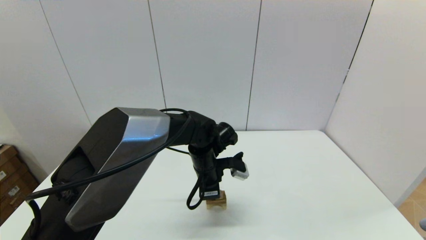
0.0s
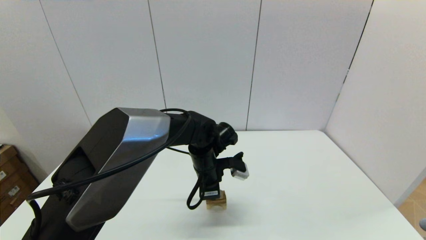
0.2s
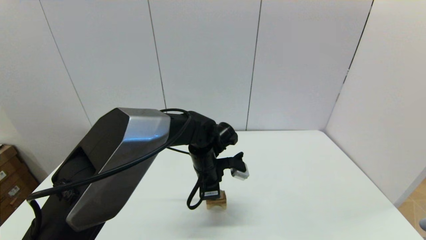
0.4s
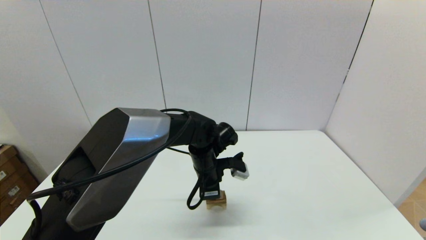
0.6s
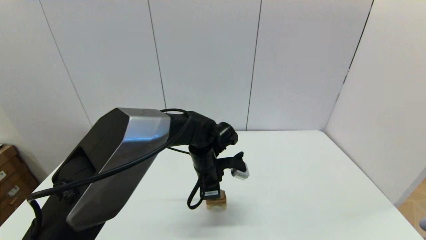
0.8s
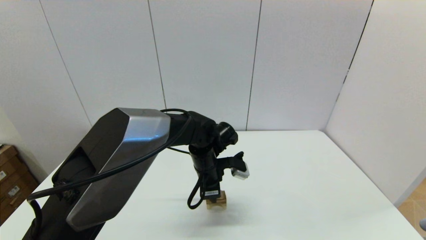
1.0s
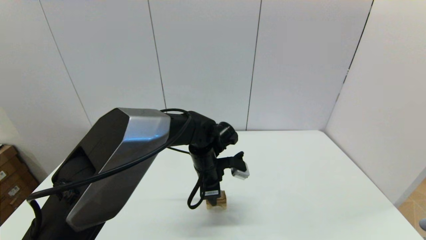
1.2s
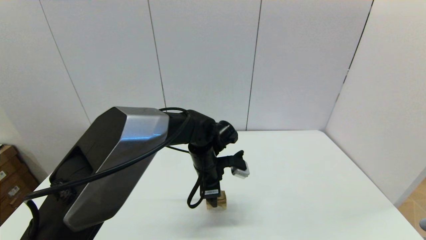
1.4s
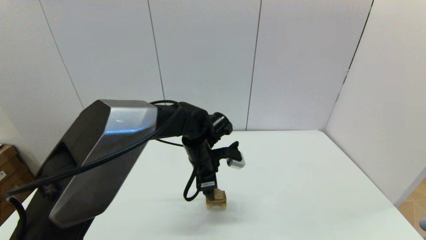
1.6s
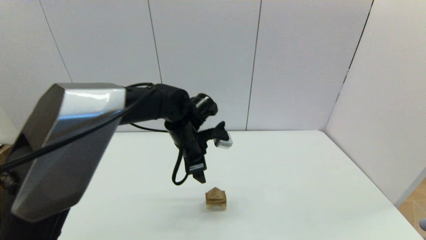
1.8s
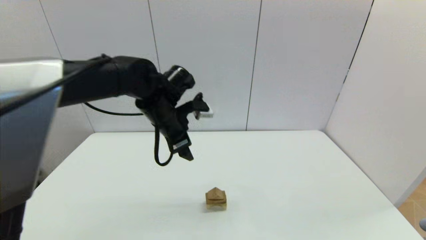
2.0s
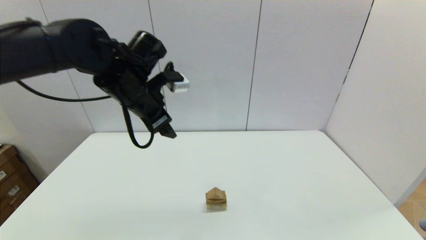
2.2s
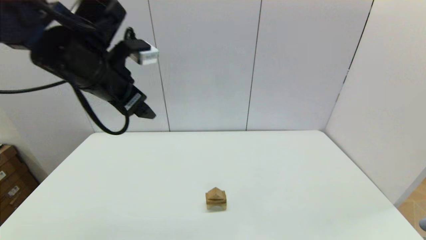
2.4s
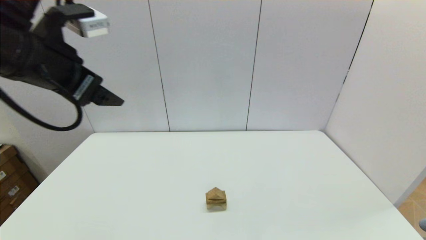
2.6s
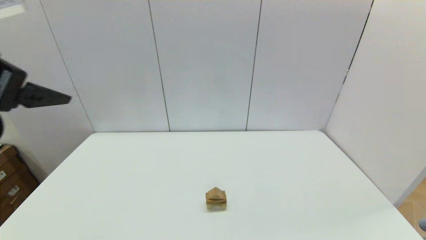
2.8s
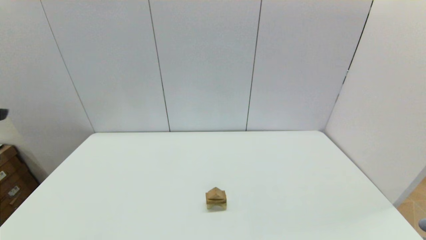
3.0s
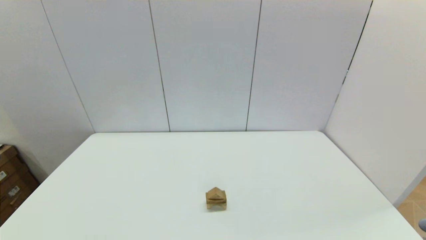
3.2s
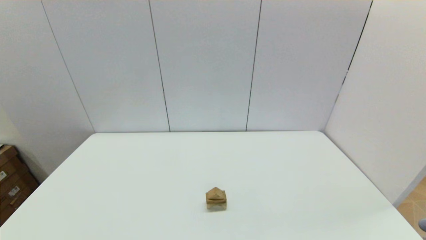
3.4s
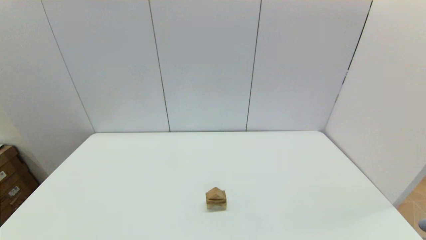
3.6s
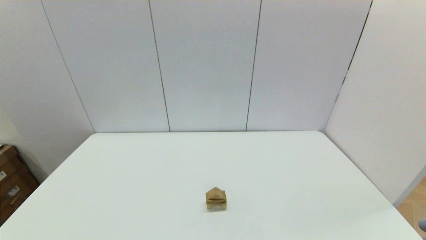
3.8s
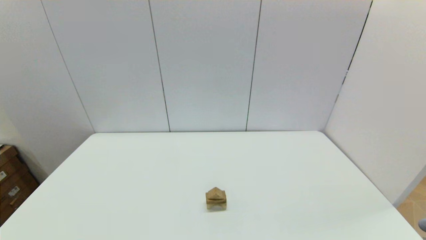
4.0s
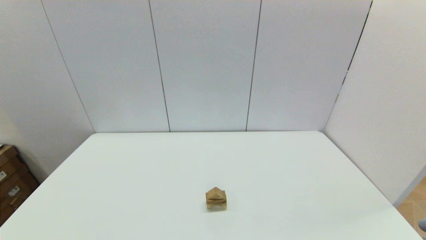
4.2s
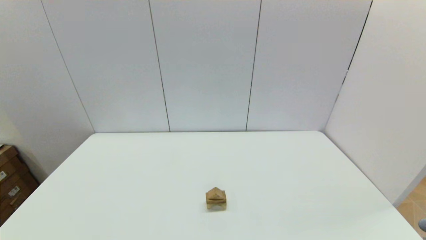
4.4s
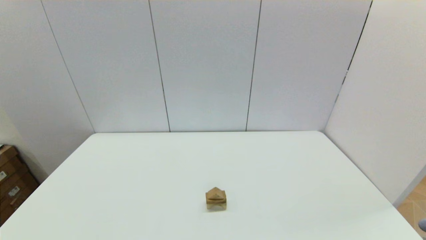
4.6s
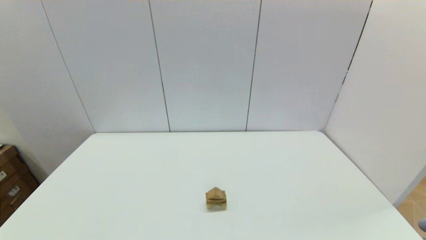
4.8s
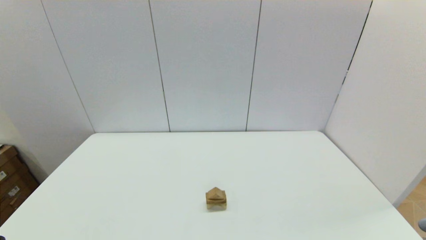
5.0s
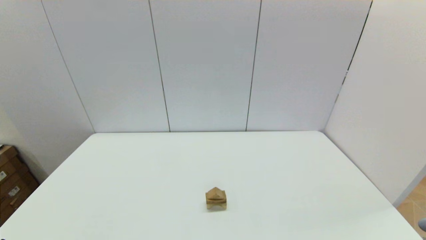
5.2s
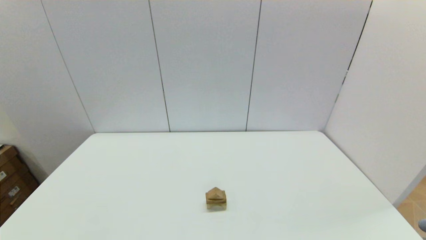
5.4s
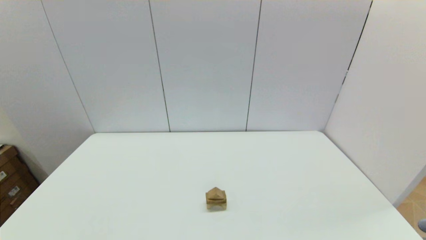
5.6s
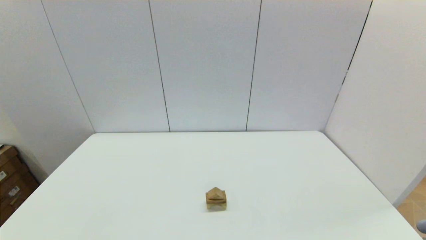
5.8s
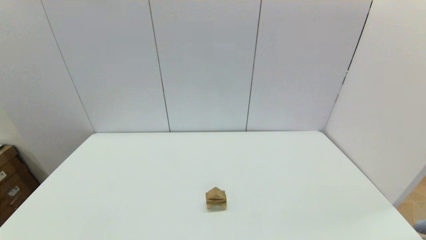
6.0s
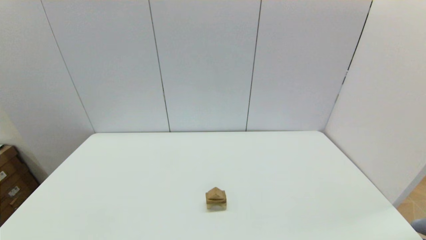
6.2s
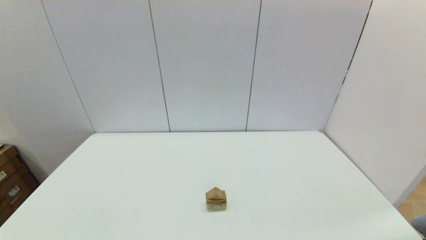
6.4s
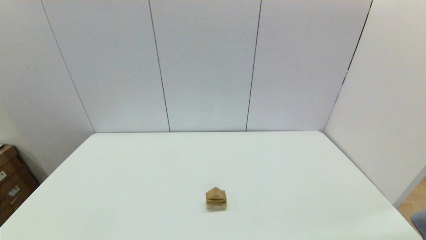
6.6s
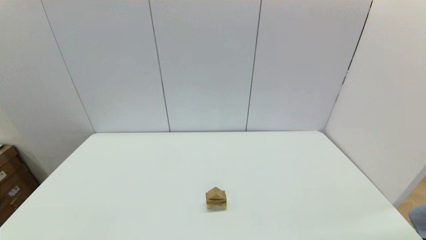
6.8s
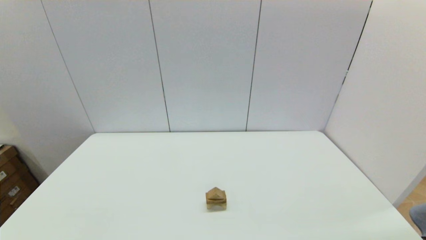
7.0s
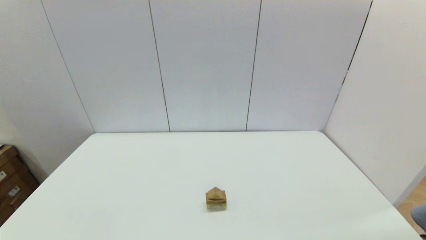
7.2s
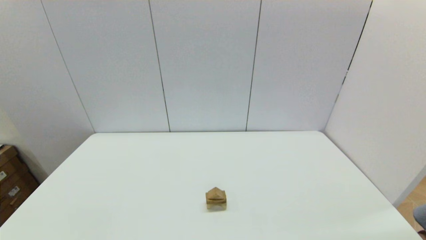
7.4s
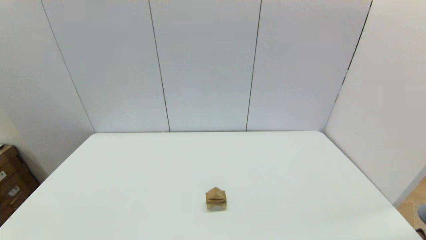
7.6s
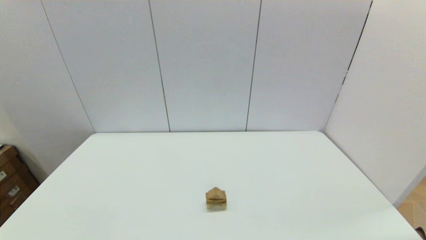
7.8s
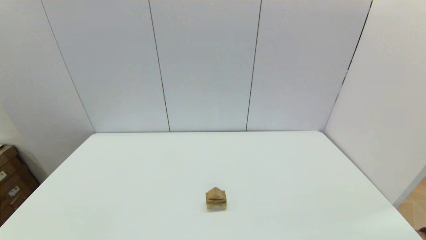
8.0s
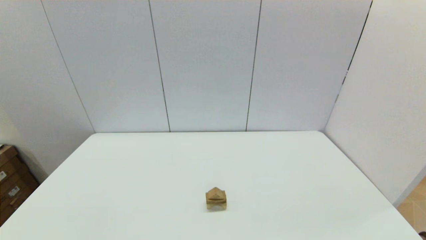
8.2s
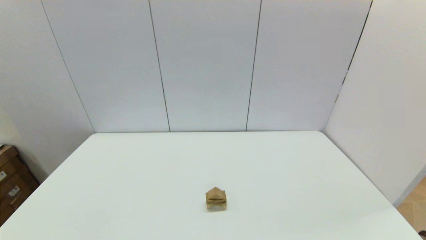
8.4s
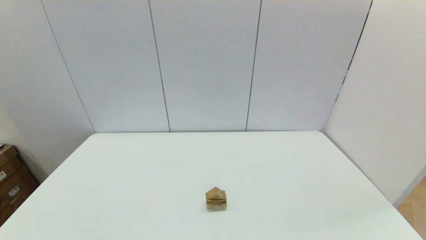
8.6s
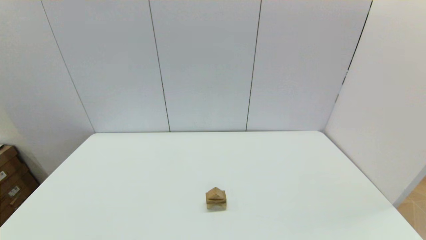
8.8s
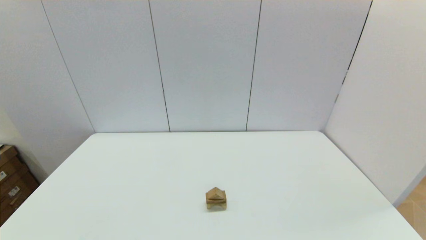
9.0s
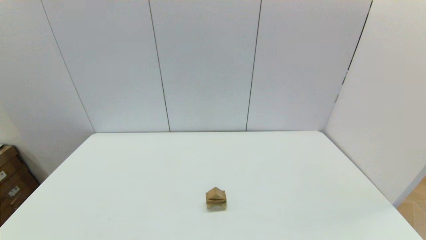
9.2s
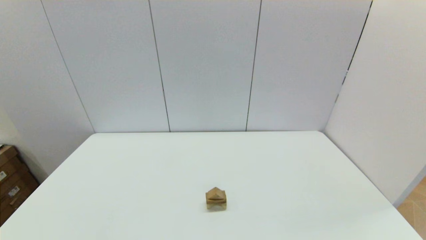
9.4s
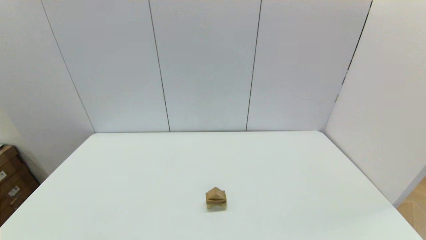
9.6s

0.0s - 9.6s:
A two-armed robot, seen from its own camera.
Task of the whole recording: place the arched building blocks in the center of the table, set up the rectangular building blocks, and then set up the triangular building blocks.
0.0s - 1.6s: The left gripper opens its fingers.
1.6s - 3.2s: The left gripper moves backward, to the left and upward, some 50 cm.
6.4s - 9.6s: Both grippers stay put.

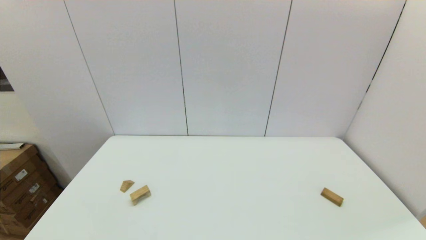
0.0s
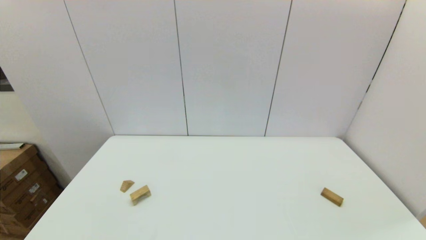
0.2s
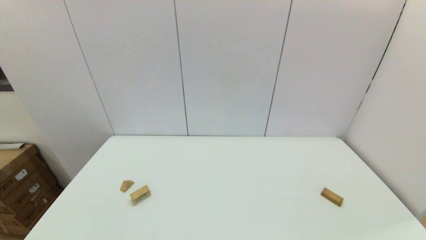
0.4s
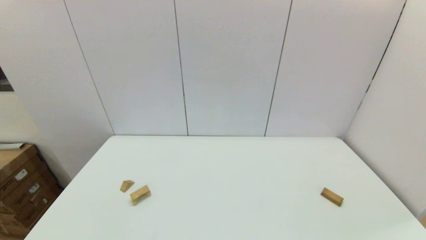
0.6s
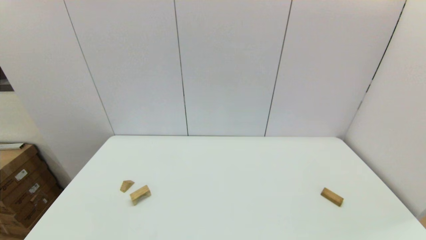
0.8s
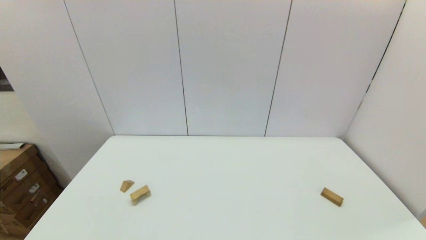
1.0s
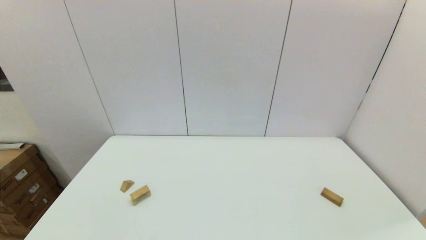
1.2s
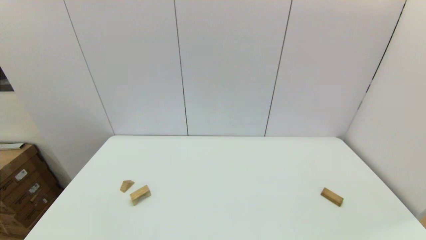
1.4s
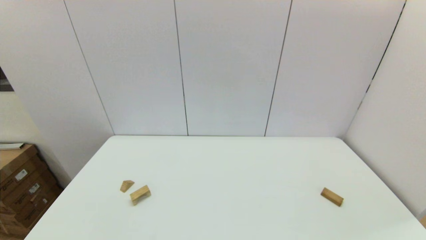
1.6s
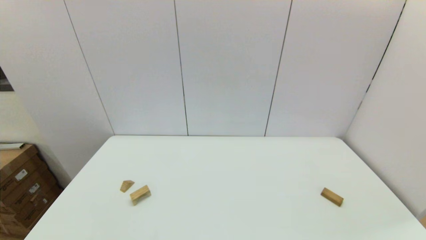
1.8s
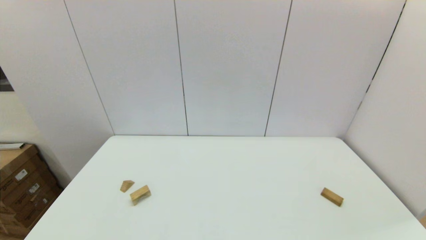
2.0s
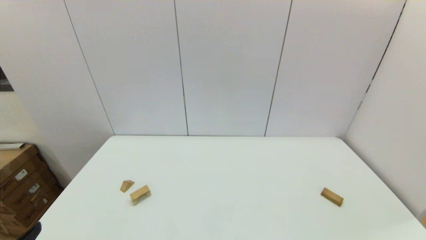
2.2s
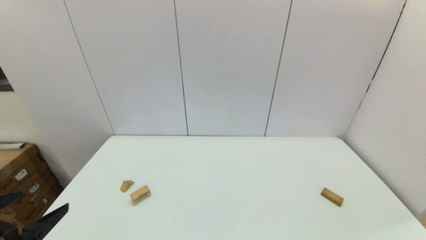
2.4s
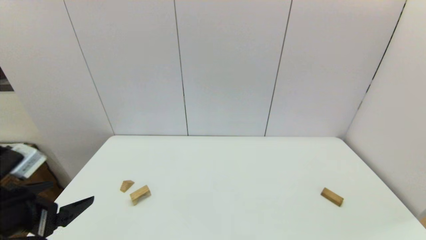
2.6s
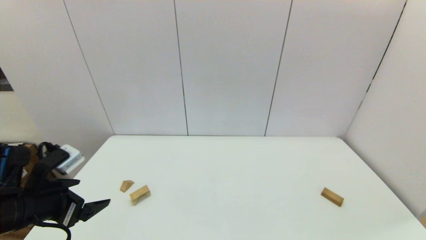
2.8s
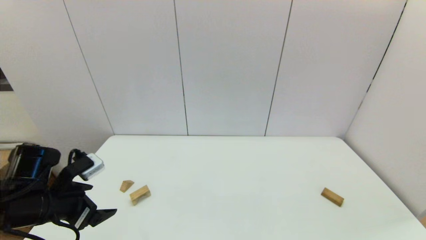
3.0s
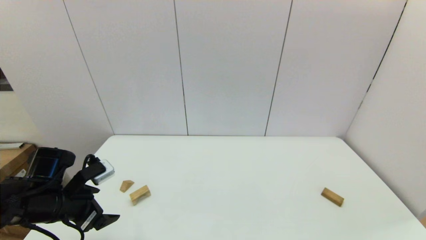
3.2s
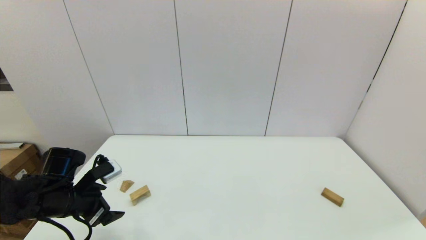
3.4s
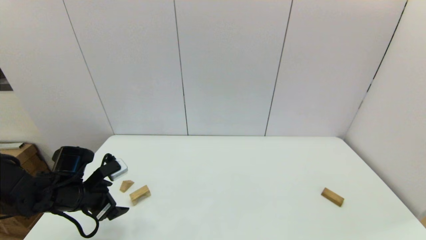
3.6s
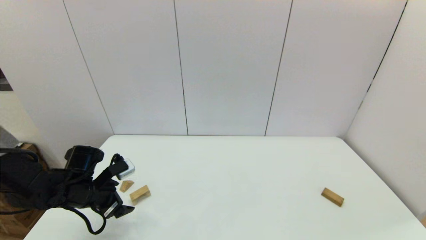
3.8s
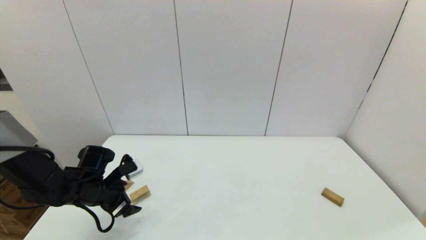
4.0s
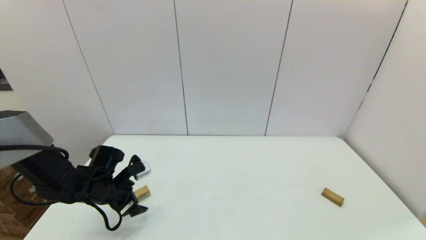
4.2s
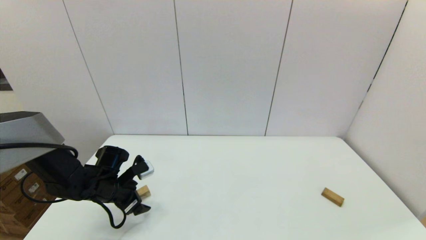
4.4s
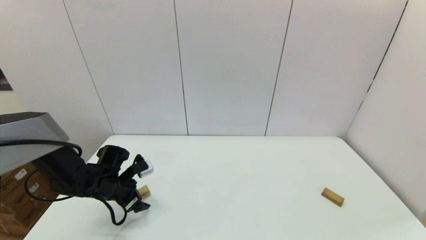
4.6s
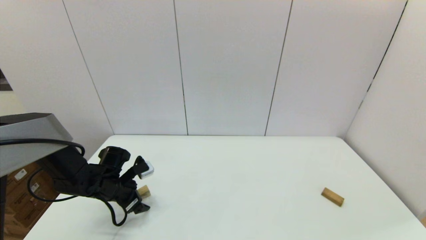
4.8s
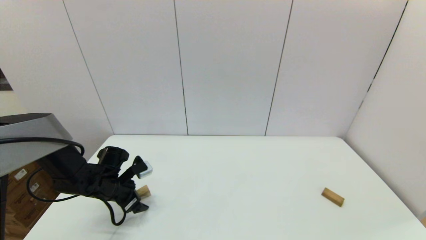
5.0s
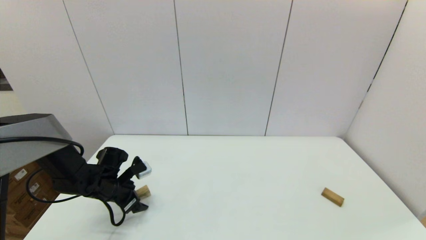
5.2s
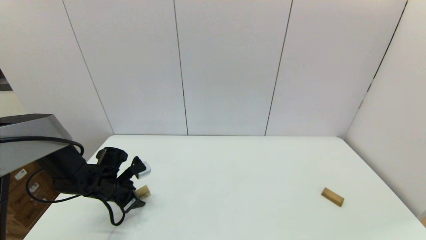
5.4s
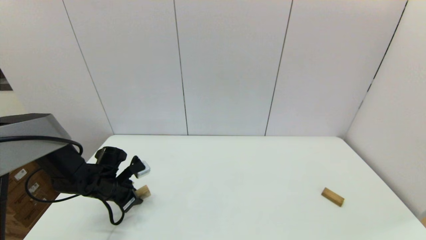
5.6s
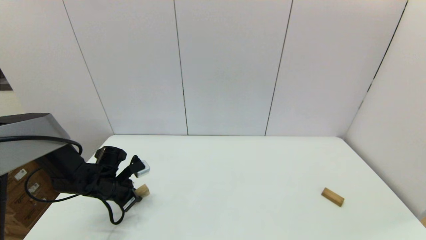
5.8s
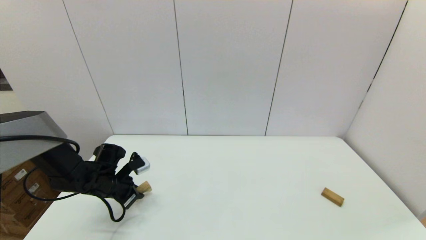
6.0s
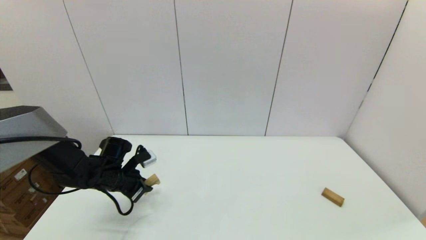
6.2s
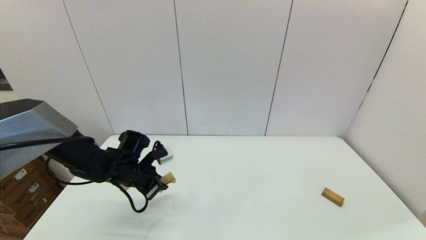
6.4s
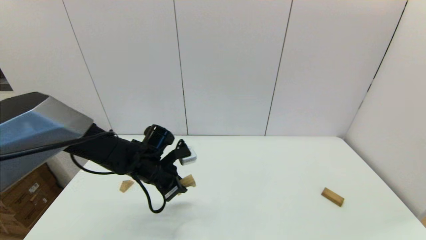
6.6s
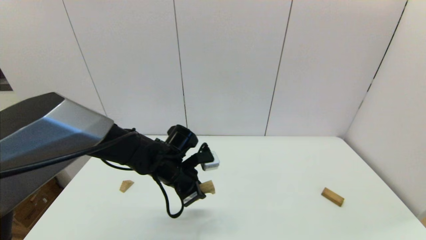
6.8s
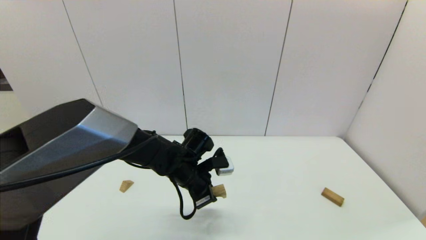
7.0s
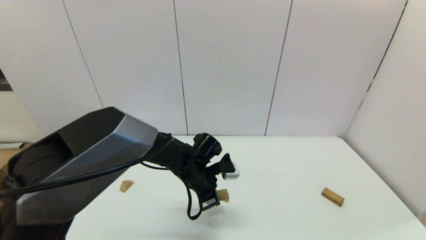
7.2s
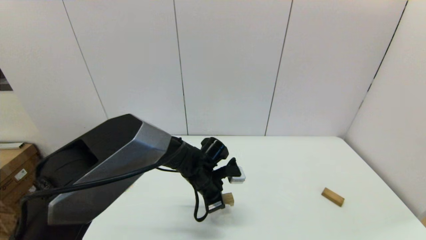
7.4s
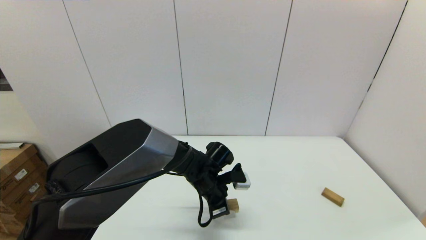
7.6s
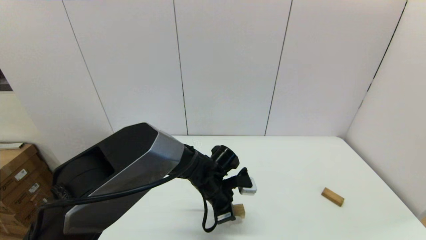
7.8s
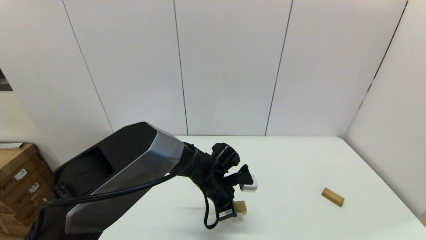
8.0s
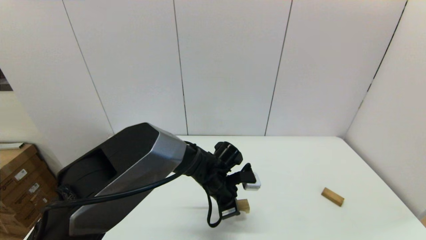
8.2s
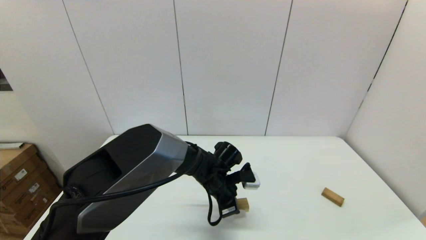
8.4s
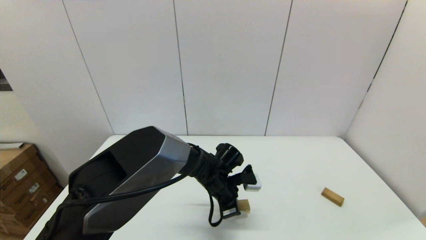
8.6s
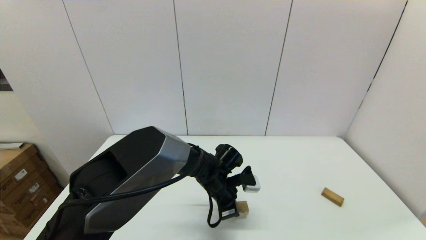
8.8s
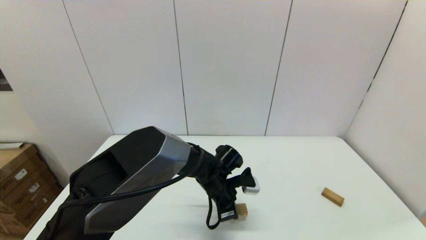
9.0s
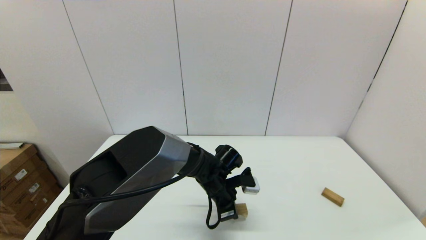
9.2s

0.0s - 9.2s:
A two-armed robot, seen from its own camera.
Task of the whole recording: place the arched building blocks in the center of the table, set up the rectangular building blocks, and then set up the triangular building blocks.
Step, 2.2s - 5.6s: Grasp the arch-shaped block with the left gripper.
0.0s - 1.6s: Both grippers stay put.
1.6s - 3.0s: The left gripper is displaced forward by some 20 cm.
3.0s - 4.6s: The left gripper goes approximately 15 cm forward and downward.
4.6s - 6.2s: The left gripper closes.
6.2s - 7.6s: The left gripper travels to the right by some 25 cm.
7.6s - 9.2s: There are only small adjustments of the grippers.
